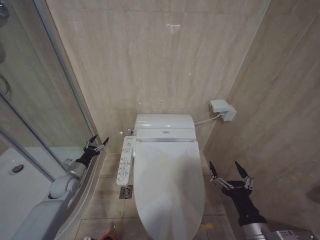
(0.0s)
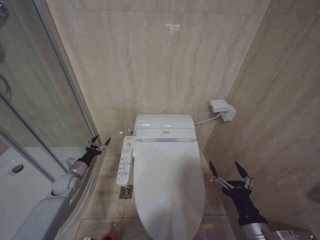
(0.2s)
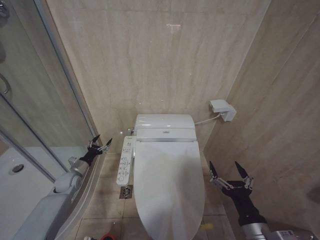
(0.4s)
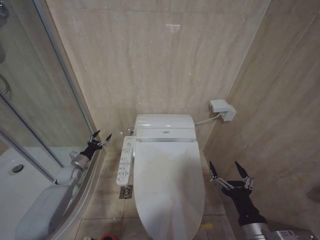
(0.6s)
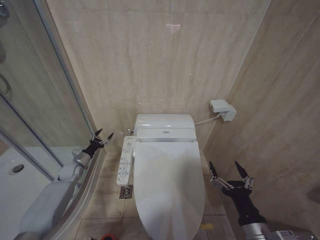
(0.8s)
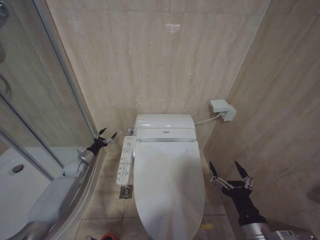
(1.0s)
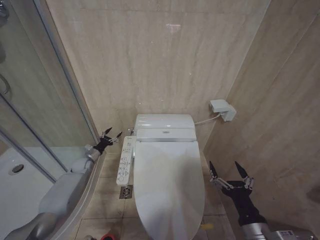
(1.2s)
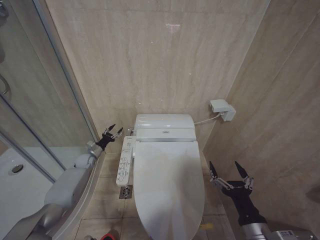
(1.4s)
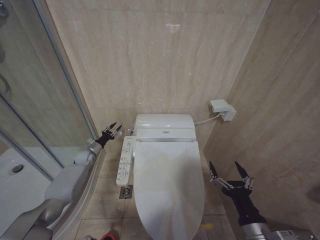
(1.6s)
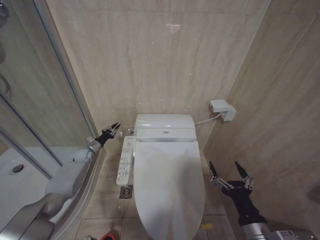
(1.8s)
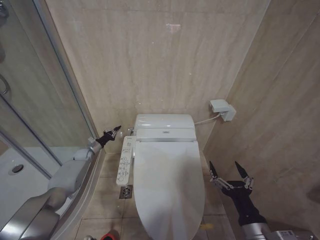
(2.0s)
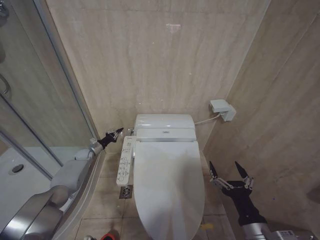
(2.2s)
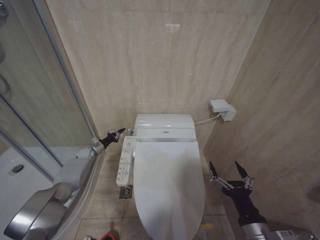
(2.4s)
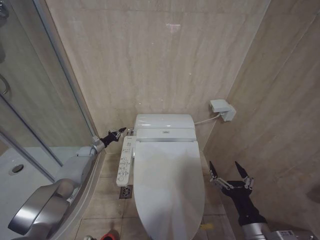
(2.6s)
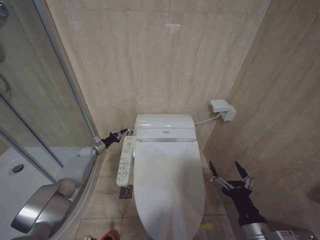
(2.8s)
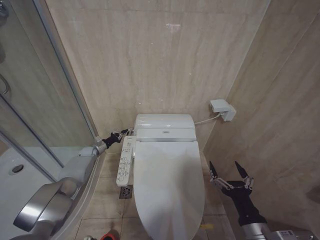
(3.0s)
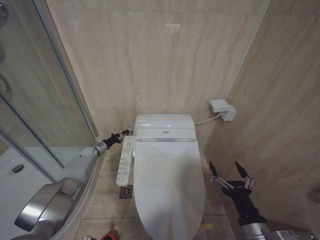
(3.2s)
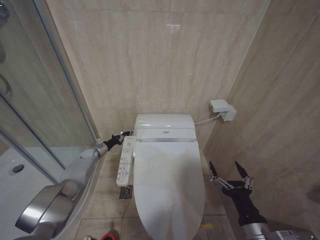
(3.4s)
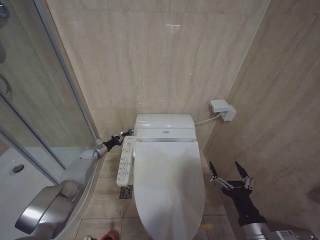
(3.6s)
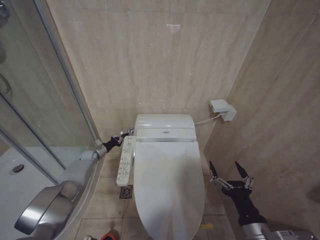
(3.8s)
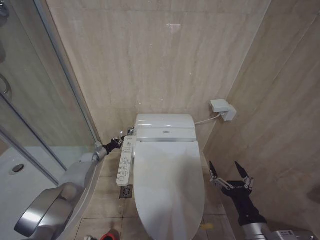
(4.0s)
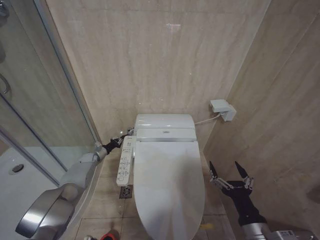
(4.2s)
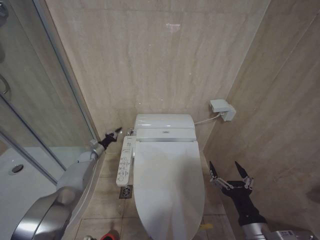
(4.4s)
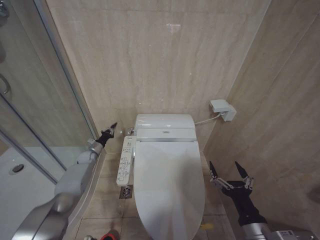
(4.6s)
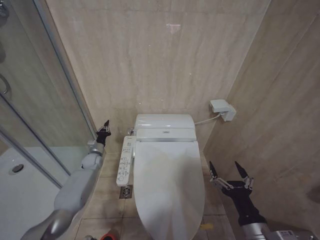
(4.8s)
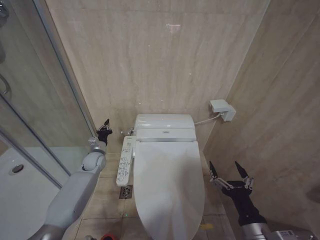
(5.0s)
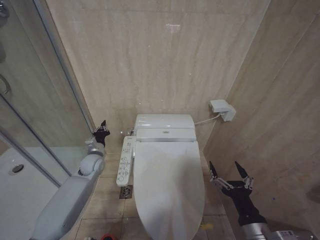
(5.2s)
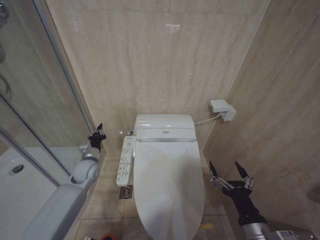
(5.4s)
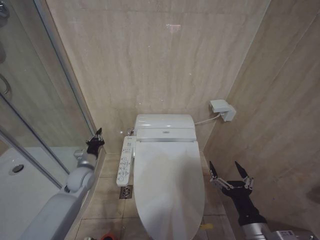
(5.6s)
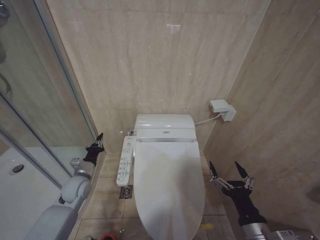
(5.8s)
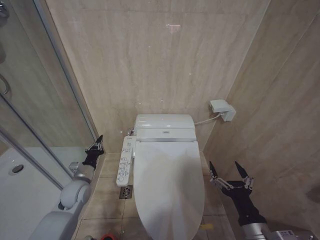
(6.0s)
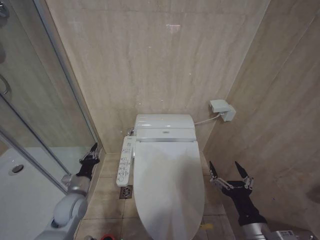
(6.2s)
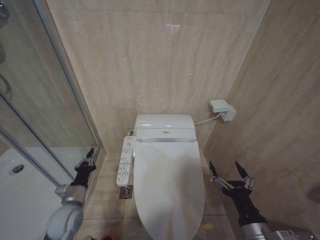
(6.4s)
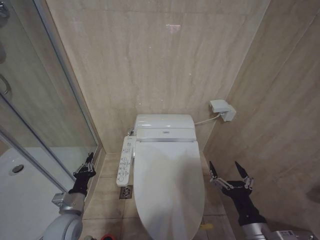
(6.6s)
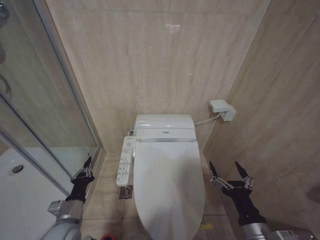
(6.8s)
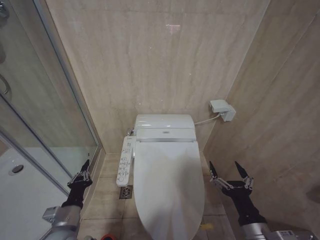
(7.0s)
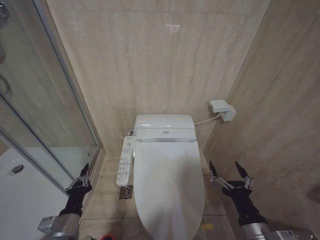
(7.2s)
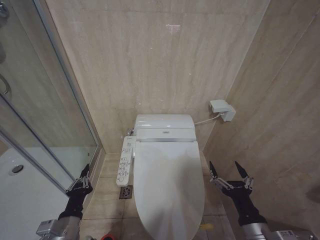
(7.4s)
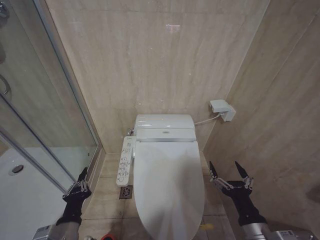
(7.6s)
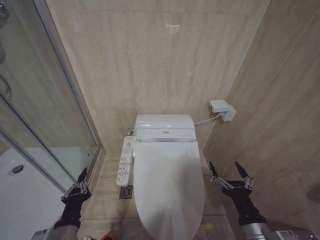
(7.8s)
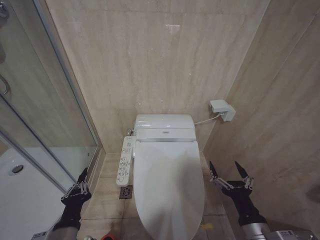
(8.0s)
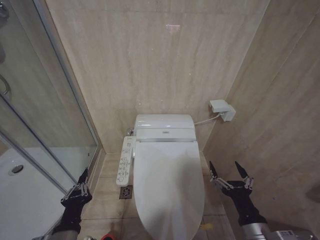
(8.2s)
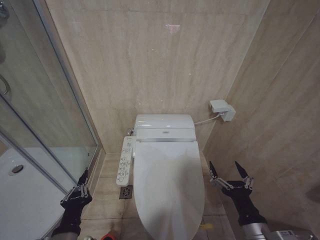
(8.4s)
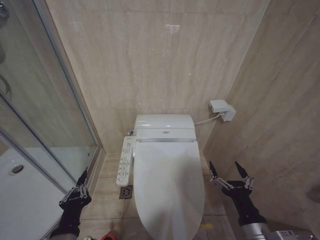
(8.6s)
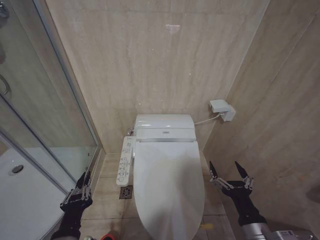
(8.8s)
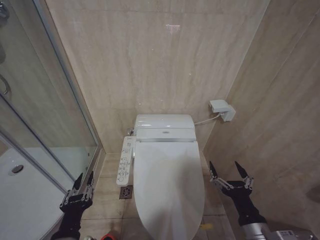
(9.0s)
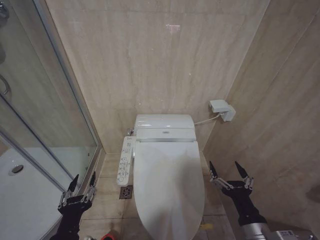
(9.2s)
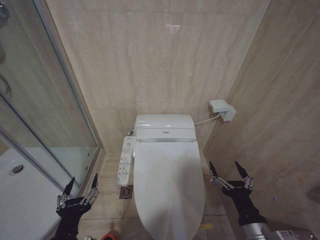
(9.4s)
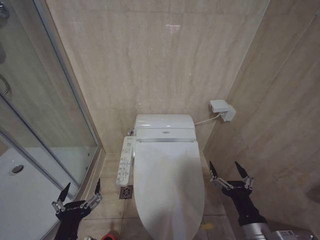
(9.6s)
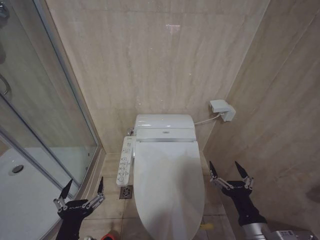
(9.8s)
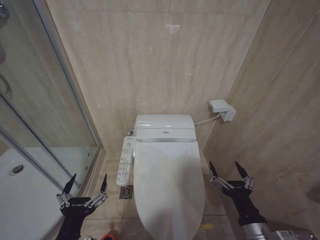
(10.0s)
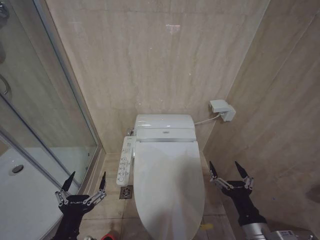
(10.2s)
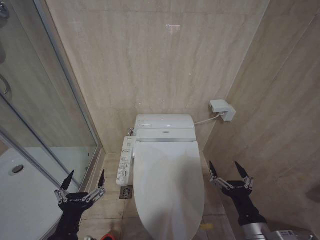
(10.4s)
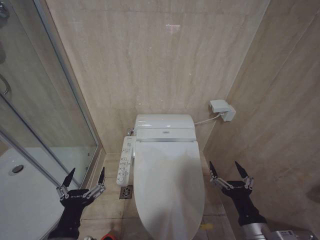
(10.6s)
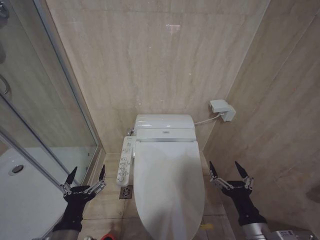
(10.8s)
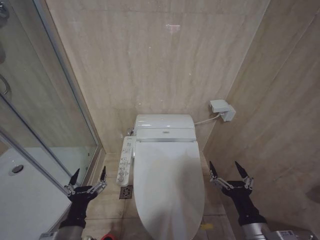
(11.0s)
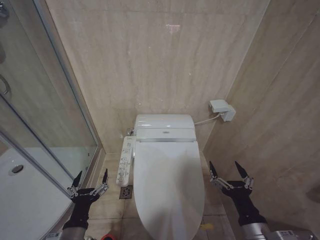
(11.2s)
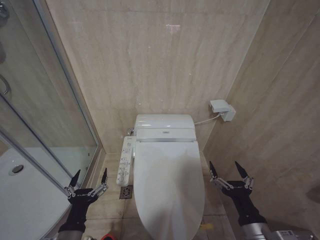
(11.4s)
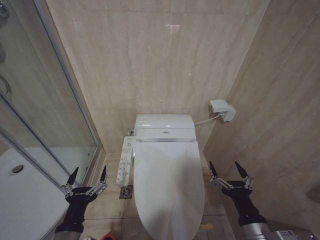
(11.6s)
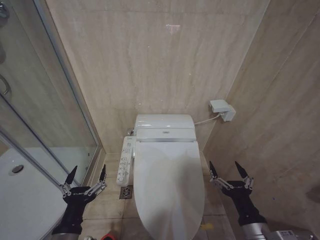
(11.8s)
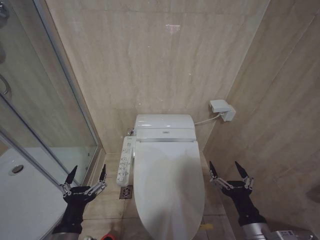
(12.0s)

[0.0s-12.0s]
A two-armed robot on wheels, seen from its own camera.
Task of the whole recording: Open the toilet lid, clean the toilet bowl with a toilet brush, close the toilet lid, and flush.
0.0s to 1.6s: The left gripper heads forward, covering some 15 cm.
1.6s to 3.0s: The left gripper closes its fingers.
3.0s to 4.4s: The grippers move only a little.
4.4s to 6.0s: The left gripper heads backward, covering about 20 cm.
6.0s to 7.6s: The left gripper shifts about 20 cm backward.
7.6s to 9.0s: The left gripper shifts by roughly 5 cm.
9.0s to 10.4s: The left gripper opens.

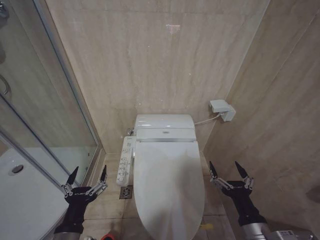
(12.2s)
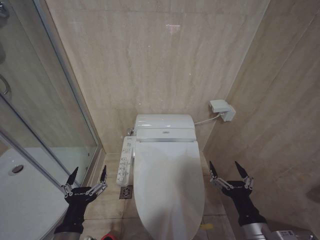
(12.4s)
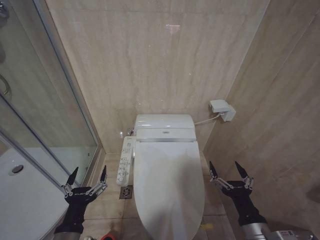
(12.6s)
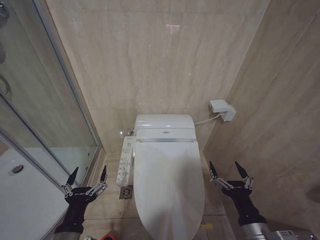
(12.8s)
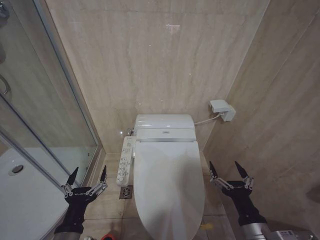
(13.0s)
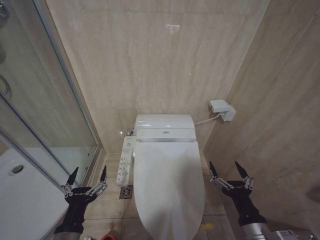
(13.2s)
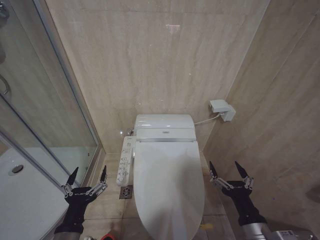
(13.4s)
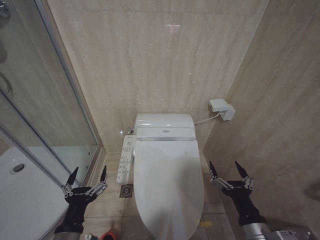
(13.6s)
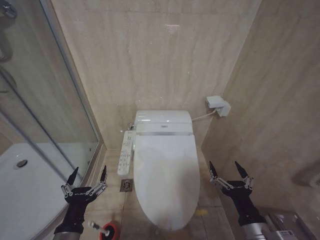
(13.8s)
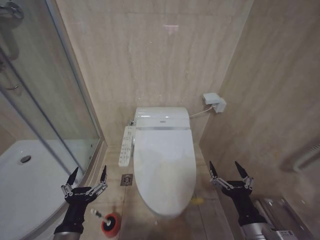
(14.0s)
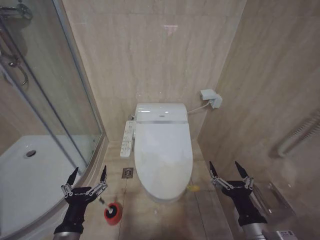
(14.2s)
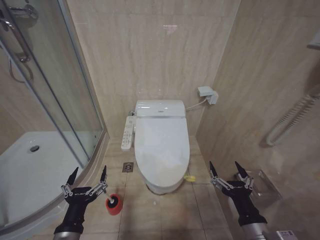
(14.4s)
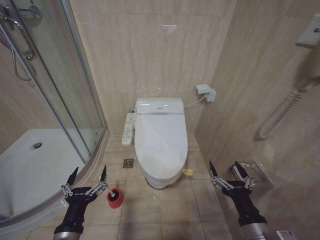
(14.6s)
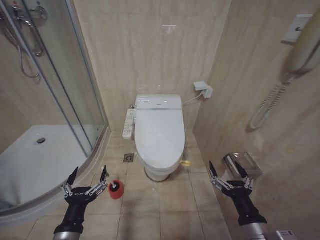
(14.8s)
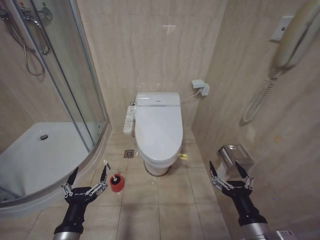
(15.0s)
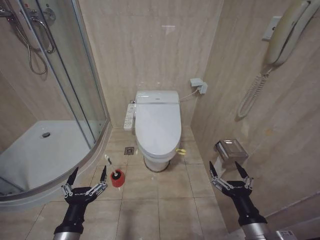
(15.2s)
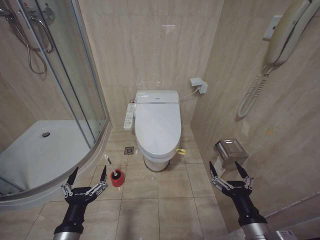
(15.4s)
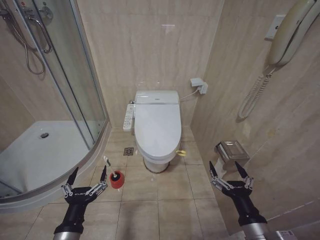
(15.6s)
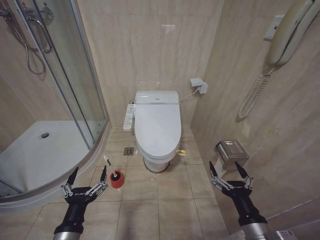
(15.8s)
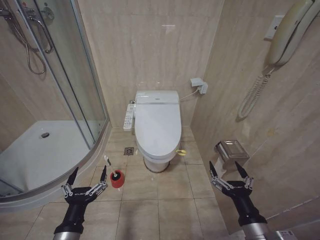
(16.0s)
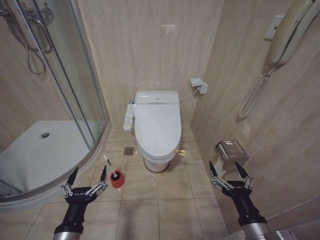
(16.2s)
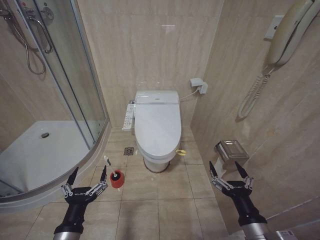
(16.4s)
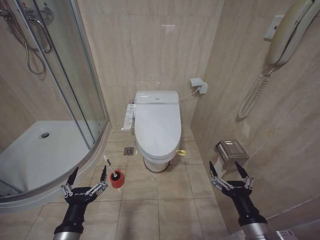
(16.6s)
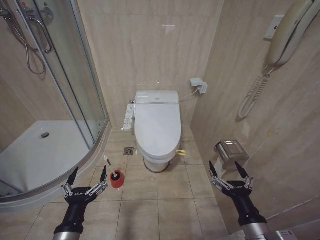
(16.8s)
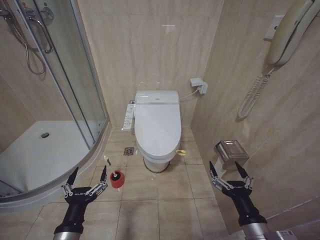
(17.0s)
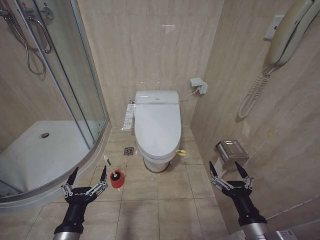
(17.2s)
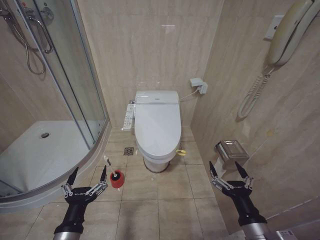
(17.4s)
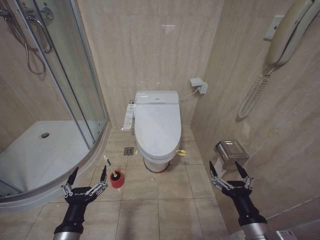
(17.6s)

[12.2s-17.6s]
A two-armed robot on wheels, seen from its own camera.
Task of the whole recording: Open the toilet lid, clean the toilet bowl with a toilet brush, close the toilet lid, and flush.
12.2s to 13.6s: The two grippers keep their place.
15.0s to 17.6s: Neither gripper changes place.

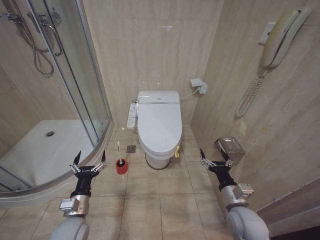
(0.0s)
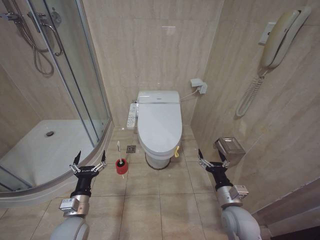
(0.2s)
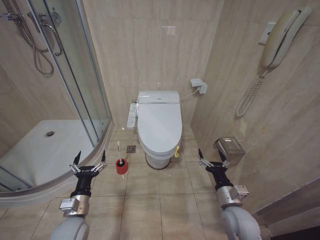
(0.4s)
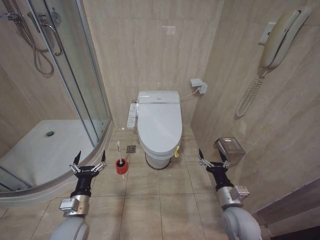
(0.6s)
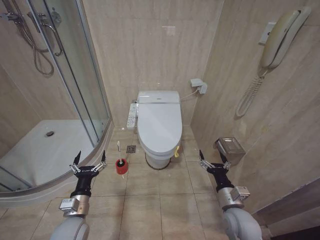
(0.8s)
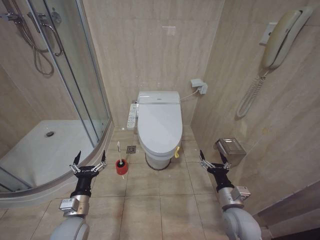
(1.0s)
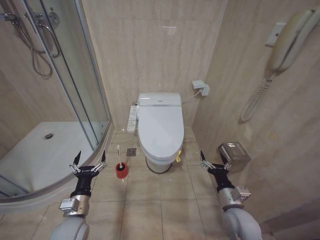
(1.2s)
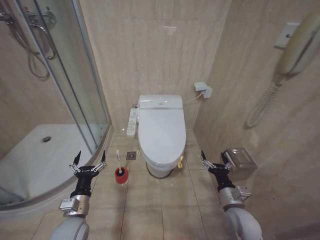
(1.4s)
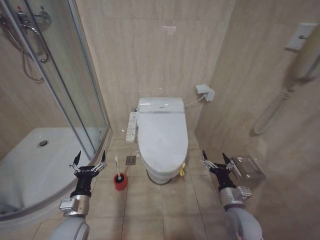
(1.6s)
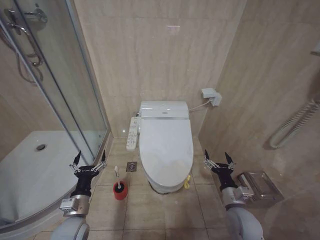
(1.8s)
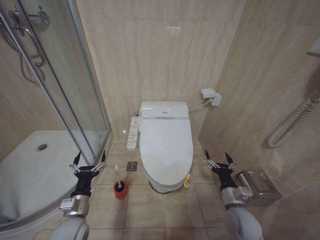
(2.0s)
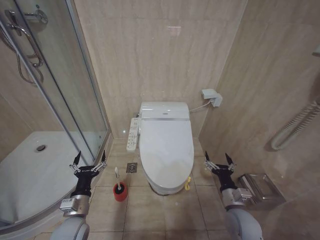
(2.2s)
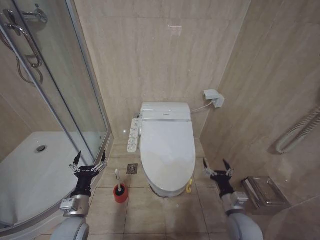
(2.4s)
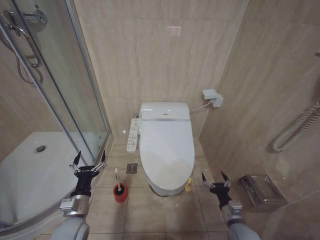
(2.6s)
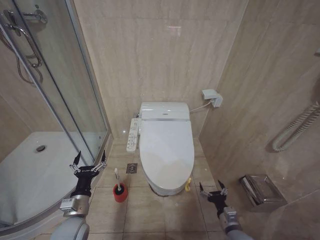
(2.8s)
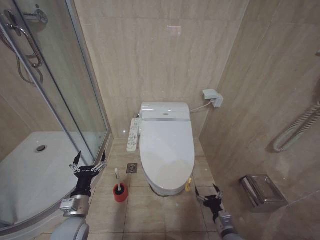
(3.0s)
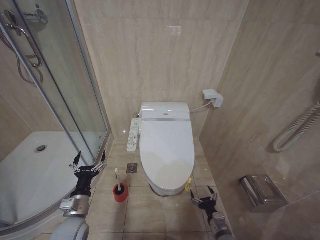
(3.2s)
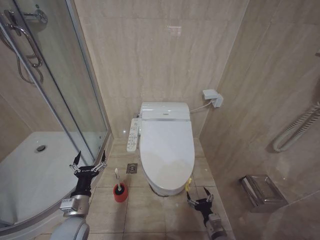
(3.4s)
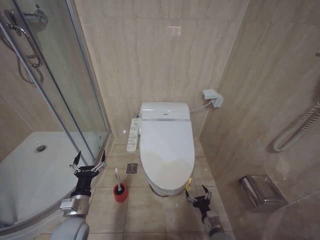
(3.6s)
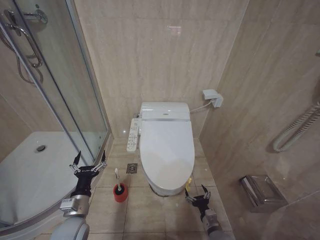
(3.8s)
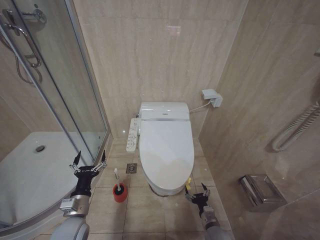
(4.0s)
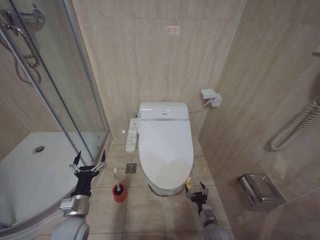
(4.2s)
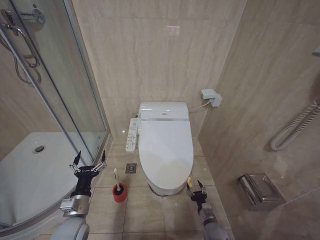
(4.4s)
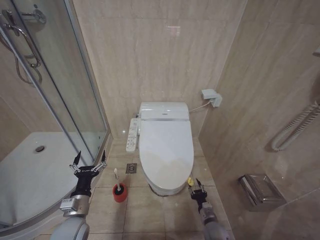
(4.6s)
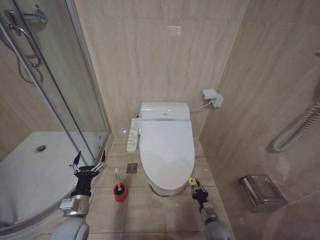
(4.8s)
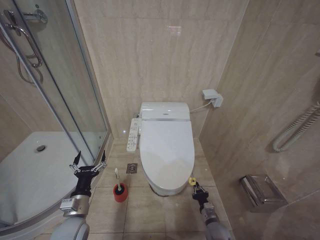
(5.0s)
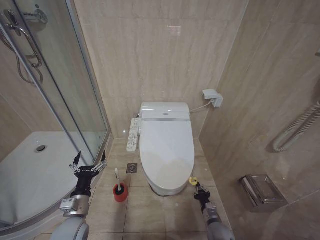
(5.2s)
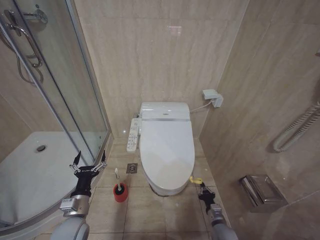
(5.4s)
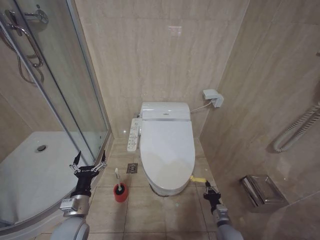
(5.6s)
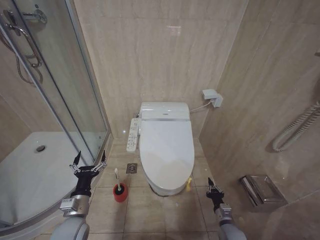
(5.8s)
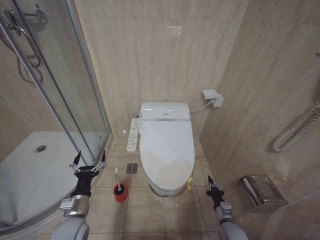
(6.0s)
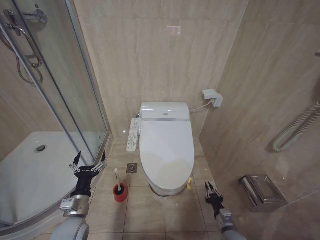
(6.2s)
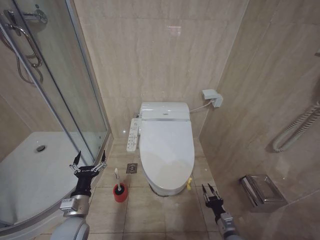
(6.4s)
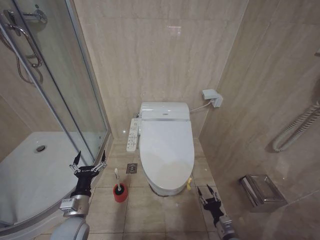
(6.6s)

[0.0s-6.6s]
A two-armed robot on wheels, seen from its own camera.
Task of the whole recording: Open the toilet lid, clean the toilet bowl with a toilet brush, close the toilet lid, and flush.
1.6s to 3.2s: The right gripper shifts approximately 15 cm downward.
3.2s to 5.0s: The right gripper moves forward, roughly 5 cm, and closes up.
5.0s to 6.6s: The right gripper shifts roughly 5 cm backward.
